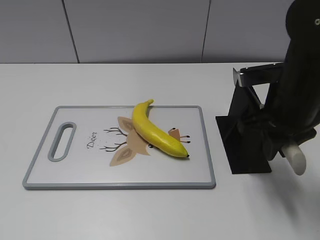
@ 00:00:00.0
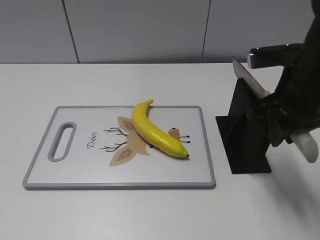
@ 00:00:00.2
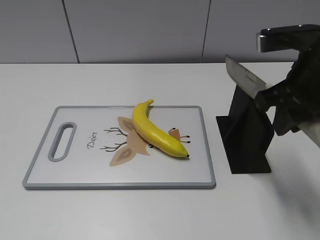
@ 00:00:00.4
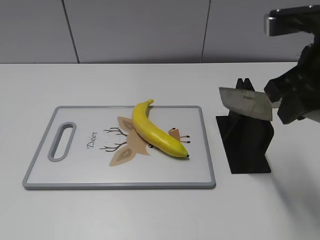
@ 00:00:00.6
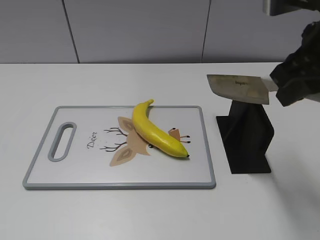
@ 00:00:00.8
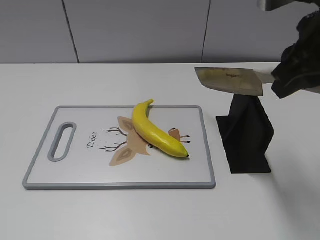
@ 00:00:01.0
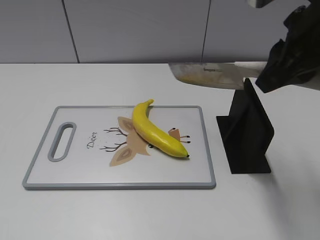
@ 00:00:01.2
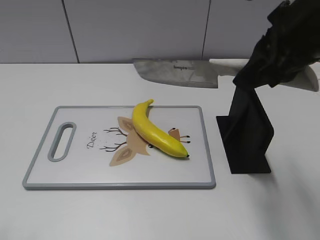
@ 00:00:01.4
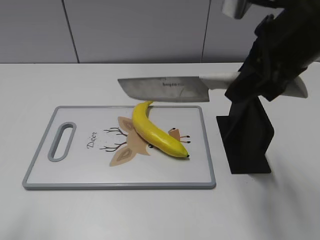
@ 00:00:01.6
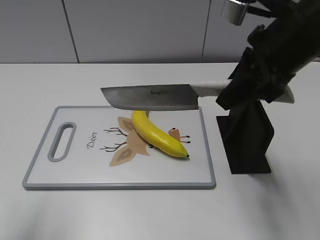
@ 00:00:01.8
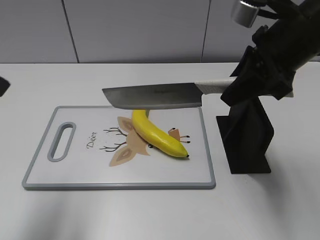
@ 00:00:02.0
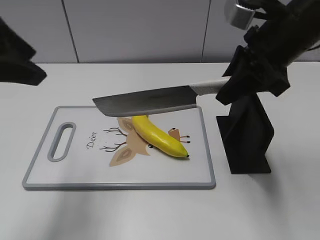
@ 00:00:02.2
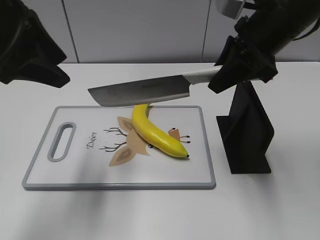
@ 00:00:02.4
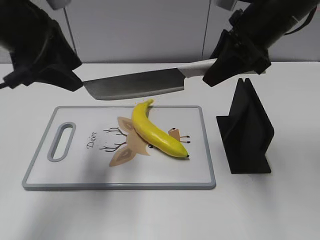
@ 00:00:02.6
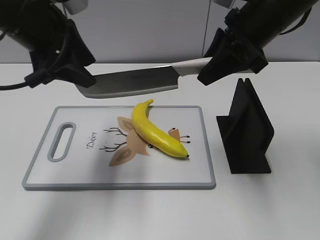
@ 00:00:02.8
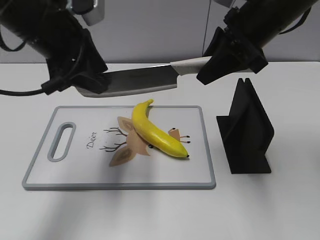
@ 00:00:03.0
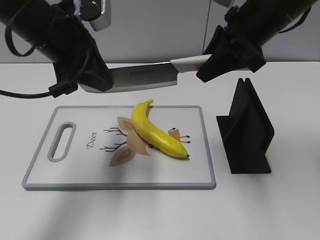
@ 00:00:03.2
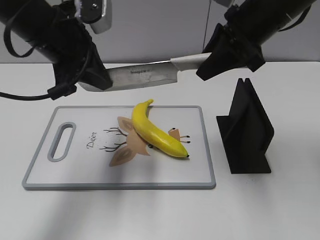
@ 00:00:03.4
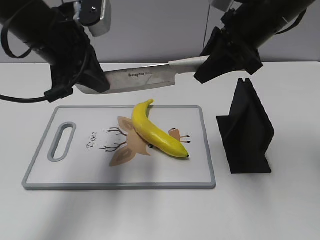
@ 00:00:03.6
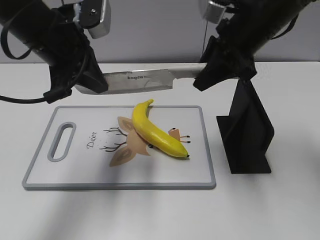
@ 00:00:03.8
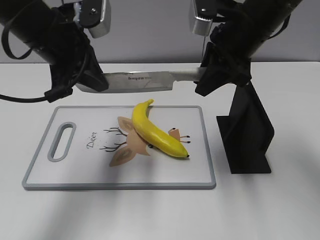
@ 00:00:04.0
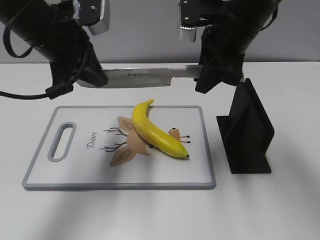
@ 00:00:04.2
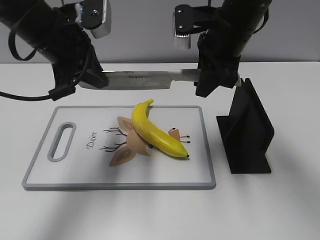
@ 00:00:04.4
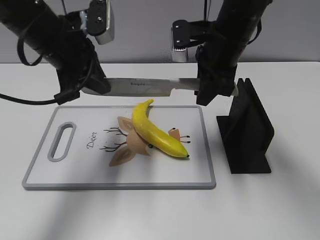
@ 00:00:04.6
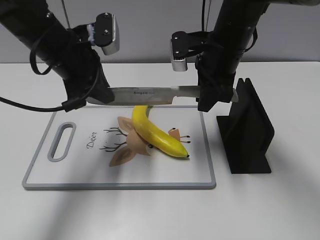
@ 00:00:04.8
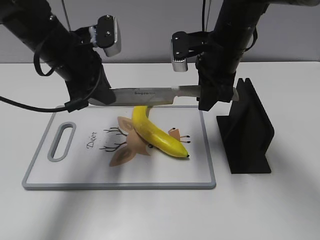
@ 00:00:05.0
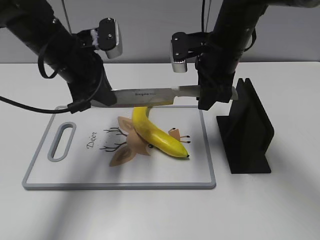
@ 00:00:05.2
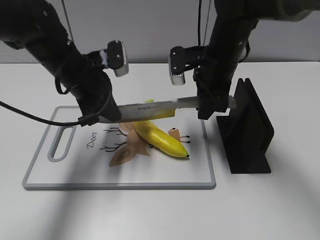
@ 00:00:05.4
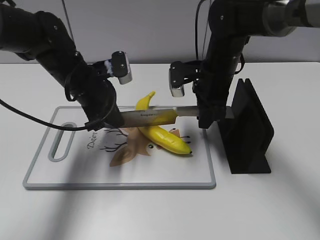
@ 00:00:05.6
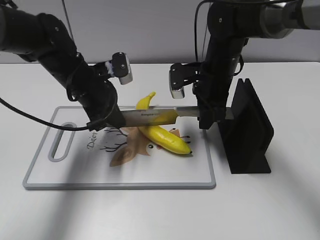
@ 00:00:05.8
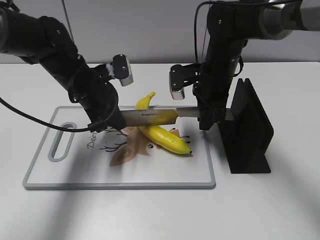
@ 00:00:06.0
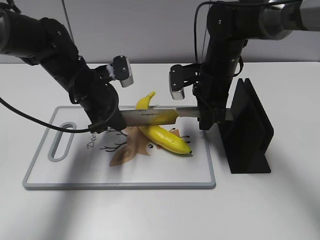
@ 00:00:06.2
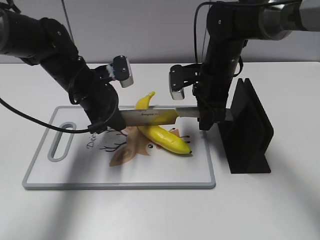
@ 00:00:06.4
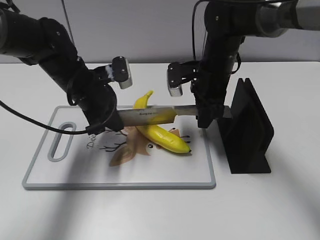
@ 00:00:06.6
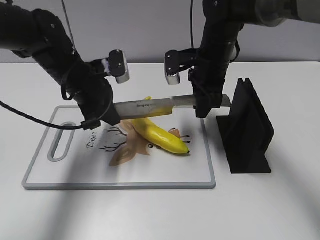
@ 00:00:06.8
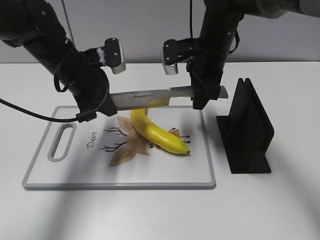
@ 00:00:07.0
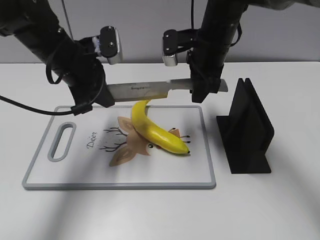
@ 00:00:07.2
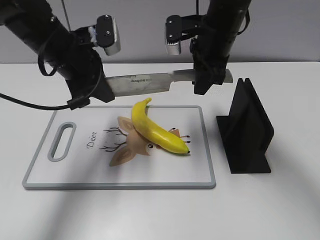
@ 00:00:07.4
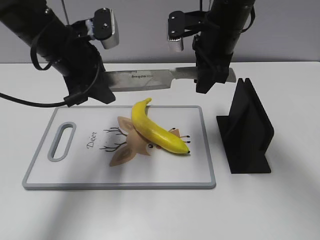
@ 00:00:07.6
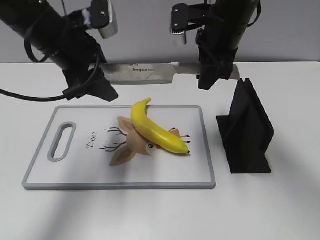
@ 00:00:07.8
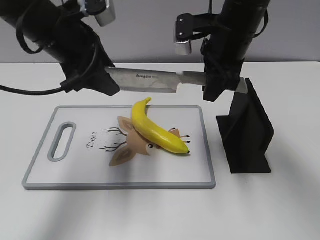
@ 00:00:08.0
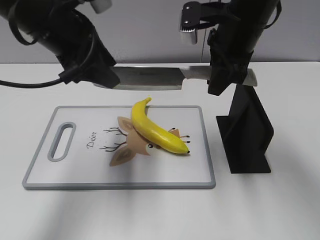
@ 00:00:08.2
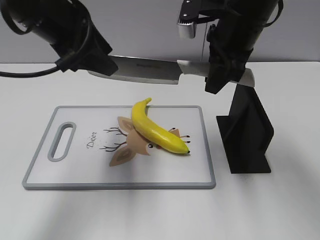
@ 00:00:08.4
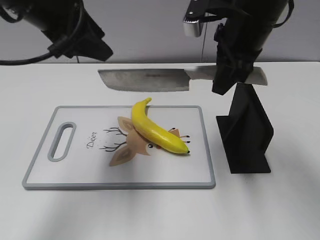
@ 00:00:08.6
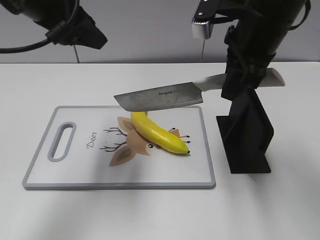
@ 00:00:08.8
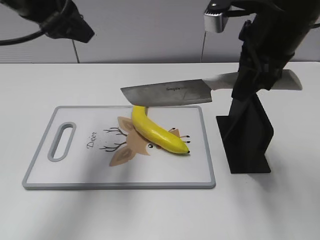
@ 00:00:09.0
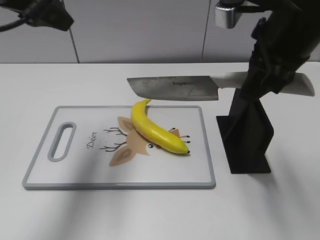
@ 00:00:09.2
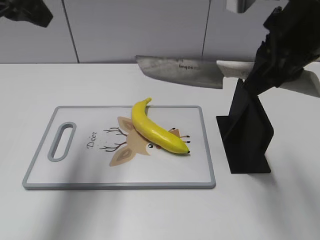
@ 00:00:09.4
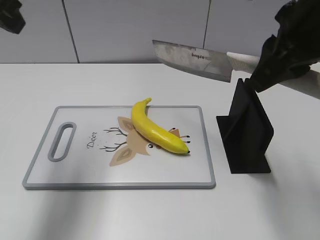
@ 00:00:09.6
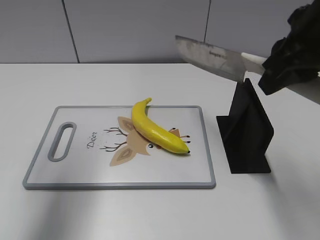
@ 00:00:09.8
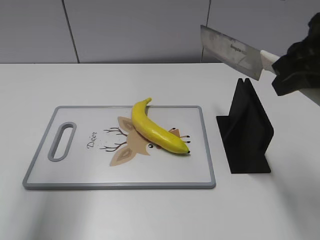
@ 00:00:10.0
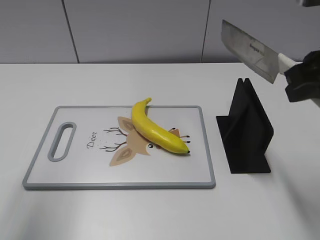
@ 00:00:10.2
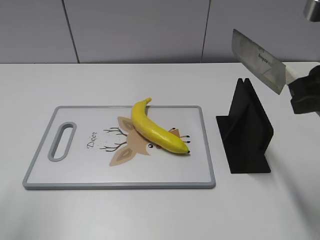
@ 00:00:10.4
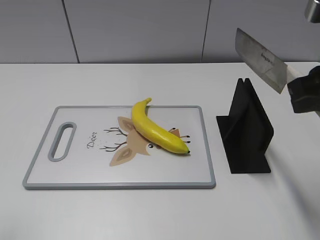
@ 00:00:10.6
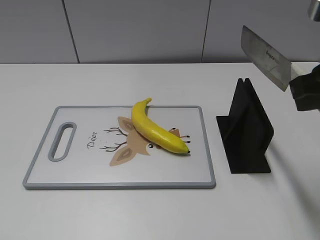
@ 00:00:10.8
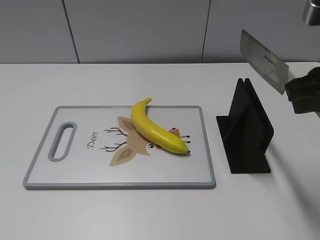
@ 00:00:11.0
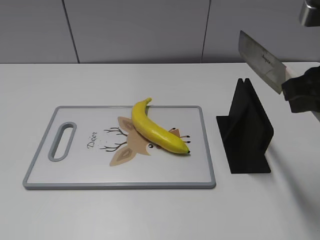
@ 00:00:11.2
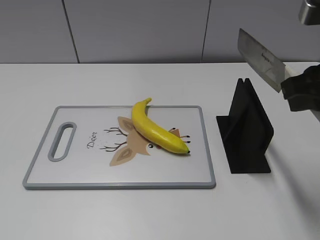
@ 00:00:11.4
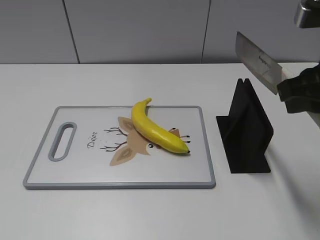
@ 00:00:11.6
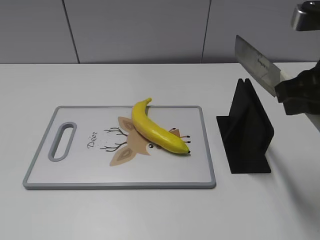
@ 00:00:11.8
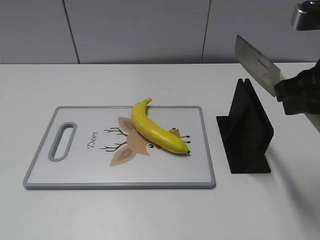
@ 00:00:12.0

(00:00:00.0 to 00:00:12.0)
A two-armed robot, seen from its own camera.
Task of the whole recording: cut plastic banana.
Step, 00:00:01.4 - 00:00:05.6: Lift the knife with your right hand.
Step, 00:00:05.8 - 00:00:08.2: Cut the banana with your right hand.
Step, 00:00:08.4 - 00:00:11.8: Lift the knife with your right hand.
00:00:00.0 - 00:00:01.6: The left gripper moves forward, some 10 cm; the right gripper heads upward, covering roughly 10 cm.
00:00:01.6 - 00:00:03.0: The left gripper travels forward and to the right by approximately 25 cm. The right gripper goes some 10 cm forward.
00:00:03.0 - 00:00:04.4: The left gripper closes up. The right gripper ends up approximately 5 cm from where it was.
00:00:04.4 - 00:00:06.0: The two grippers go some 10 cm downward.
00:00:06.0 - 00:00:07.6: The two grippers go roughly 10 cm upward. The left gripper opens its fingers.
00:00:07.6 - 00:00:09.0: The right gripper travels backward and upward by approximately 10 cm. The left gripper travels upward by some 10 cm.
00:00:09.0 - 00:00:10.4: The right gripper moves backward and to the right, approximately 10 cm; the left gripper goes approximately 20 cm backward and to the left.
00:00:10.4 - 00:00:12.0: The left gripper goes about 20 cm backward and downward.

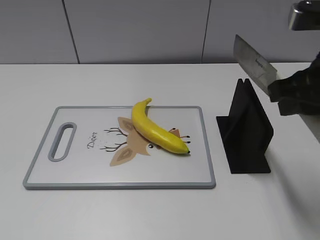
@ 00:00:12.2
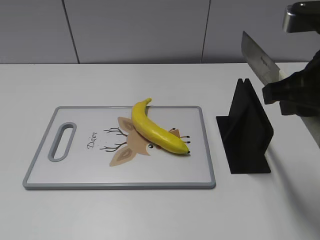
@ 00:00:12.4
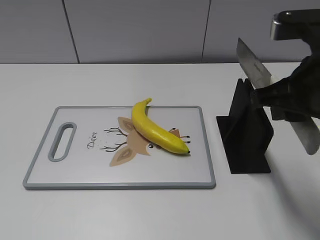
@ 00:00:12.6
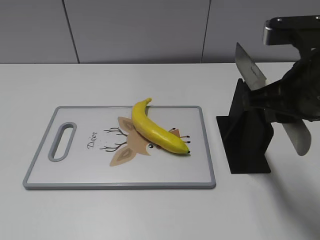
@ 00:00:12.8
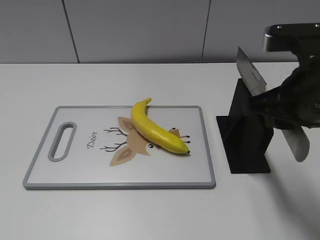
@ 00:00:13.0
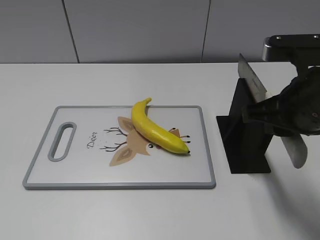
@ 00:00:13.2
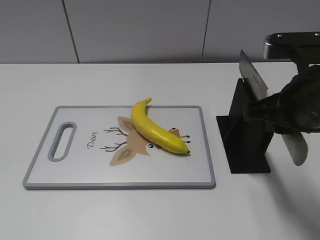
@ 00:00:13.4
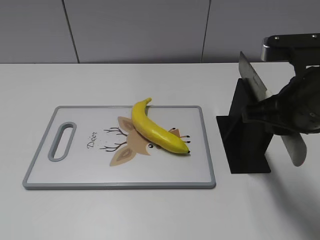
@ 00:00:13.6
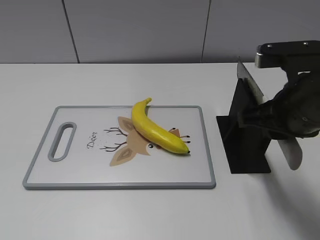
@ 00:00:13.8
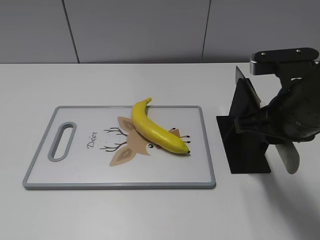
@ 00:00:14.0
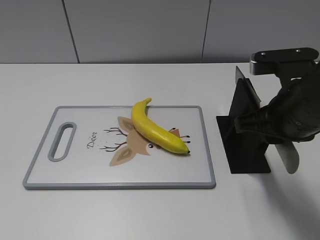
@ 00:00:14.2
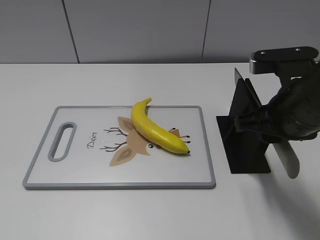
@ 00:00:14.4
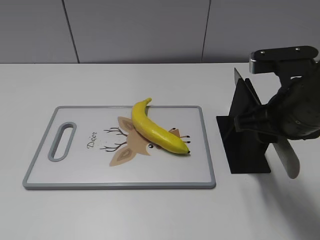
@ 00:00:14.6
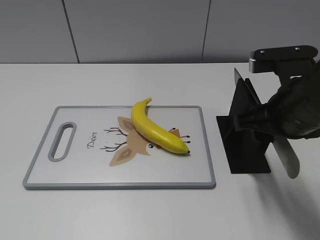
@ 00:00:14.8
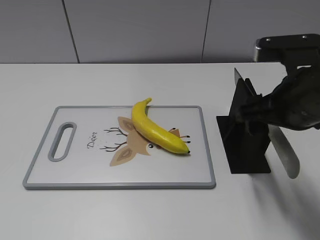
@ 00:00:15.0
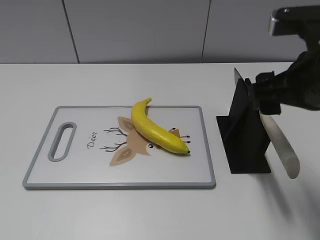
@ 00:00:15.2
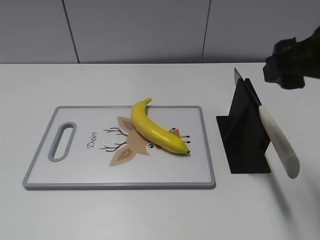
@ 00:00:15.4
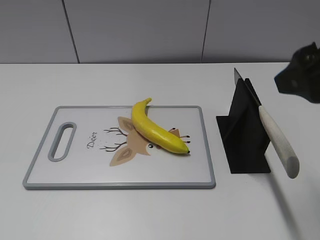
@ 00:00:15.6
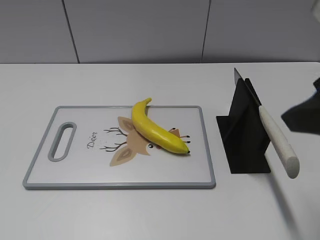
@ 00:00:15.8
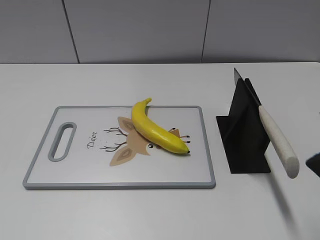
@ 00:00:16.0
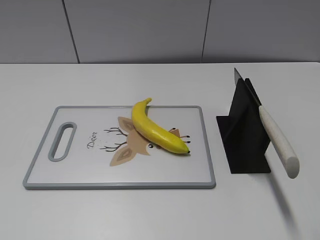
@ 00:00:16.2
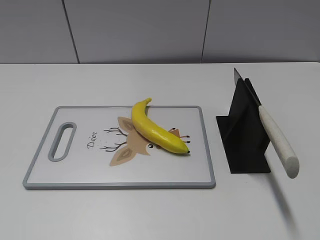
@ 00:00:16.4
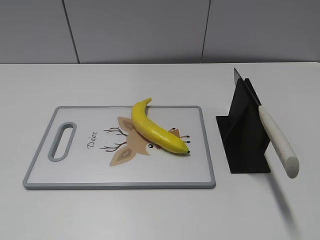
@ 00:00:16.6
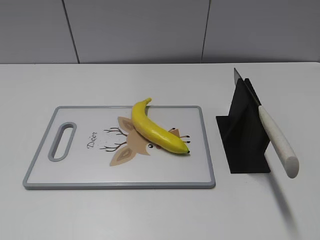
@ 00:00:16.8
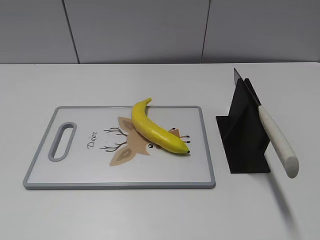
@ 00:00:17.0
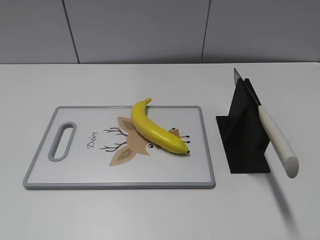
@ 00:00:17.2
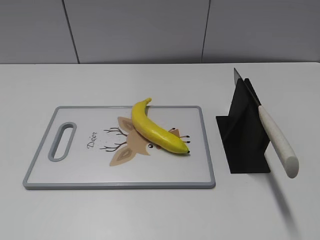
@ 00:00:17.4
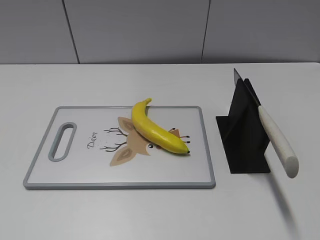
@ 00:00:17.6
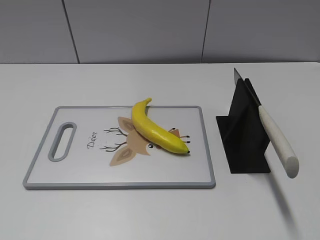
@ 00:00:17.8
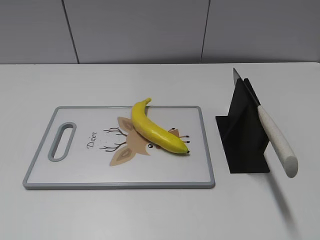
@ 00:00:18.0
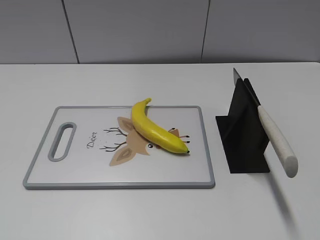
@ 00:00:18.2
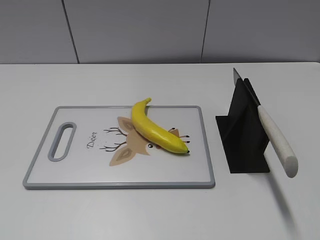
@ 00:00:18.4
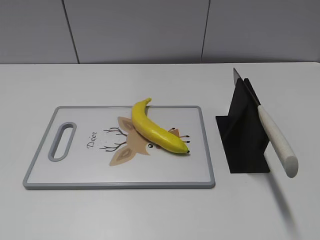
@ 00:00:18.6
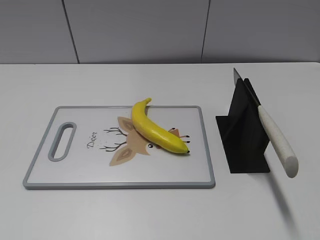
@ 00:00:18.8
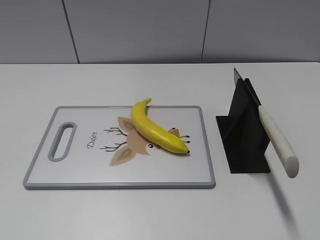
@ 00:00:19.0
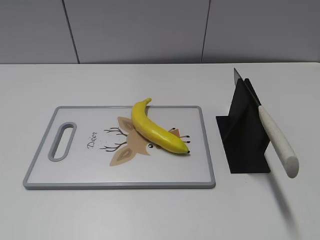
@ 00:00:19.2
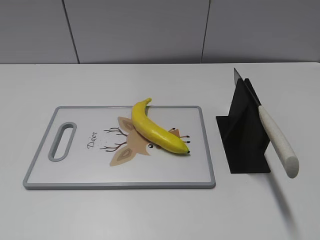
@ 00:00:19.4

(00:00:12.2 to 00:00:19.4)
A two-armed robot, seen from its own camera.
Task of the whole recording: cut plastic banana.
Step, 00:00:12.2 - 00:00:19.4: Place the knife on the storage rack with your right hand.
00:00:12.2 - 00:00:13.6: The right gripper ends up some 5 cm from where it was.
00:00:13.6 - 00:00:15.0: The right gripper opens its fingers.
00:00:15.0 - 00:00:16.6: The right gripper is displaced backward and to the right by roughly 20 cm.
